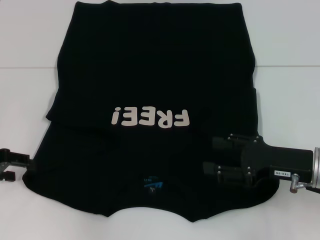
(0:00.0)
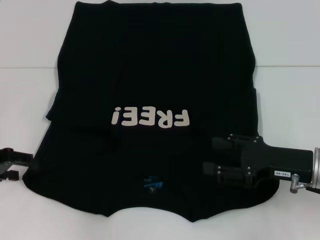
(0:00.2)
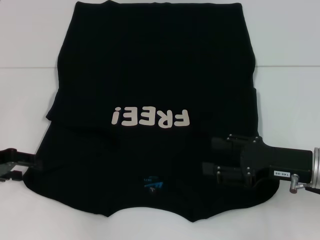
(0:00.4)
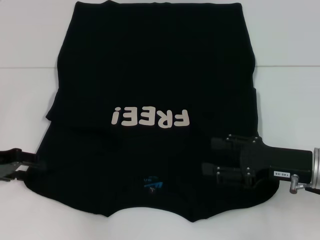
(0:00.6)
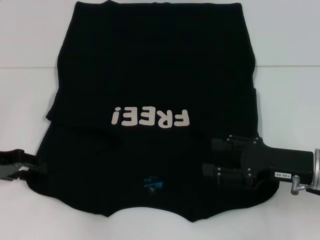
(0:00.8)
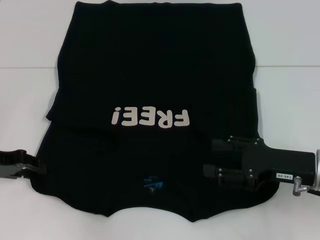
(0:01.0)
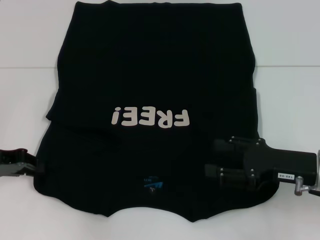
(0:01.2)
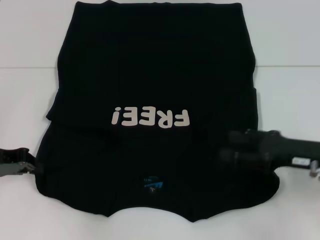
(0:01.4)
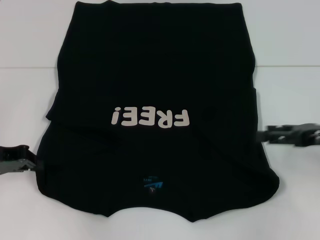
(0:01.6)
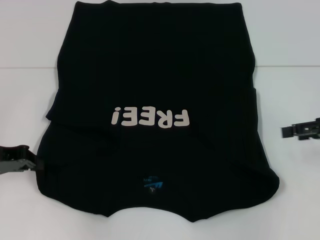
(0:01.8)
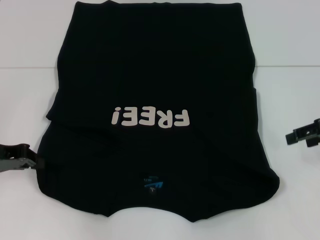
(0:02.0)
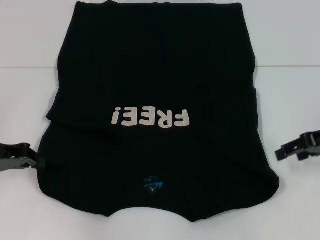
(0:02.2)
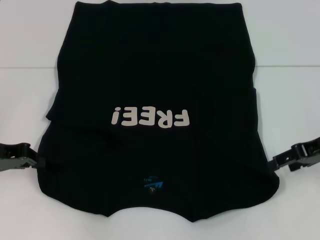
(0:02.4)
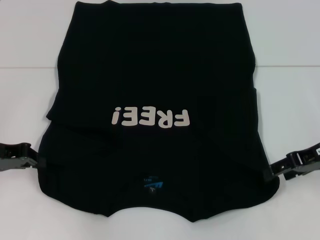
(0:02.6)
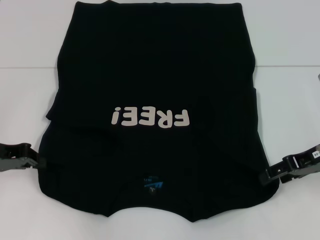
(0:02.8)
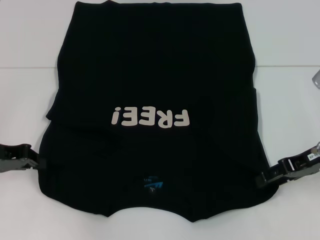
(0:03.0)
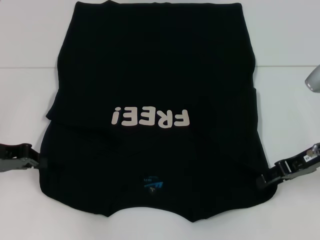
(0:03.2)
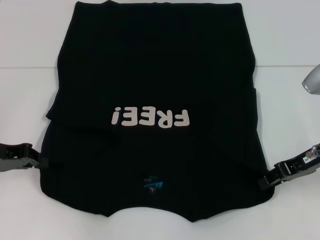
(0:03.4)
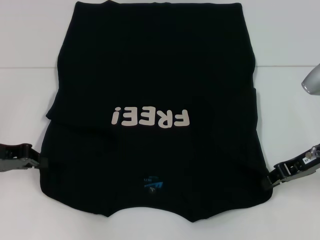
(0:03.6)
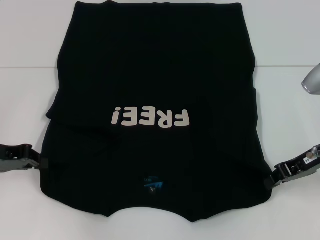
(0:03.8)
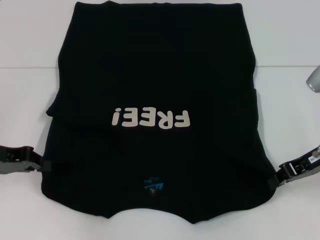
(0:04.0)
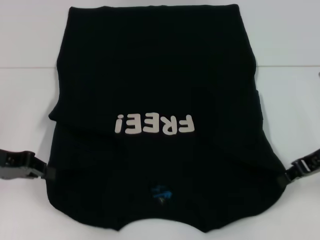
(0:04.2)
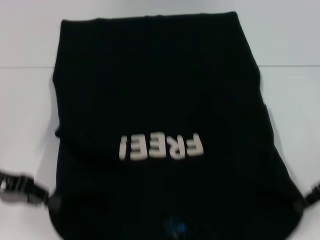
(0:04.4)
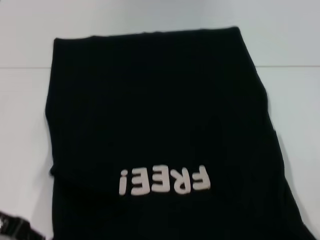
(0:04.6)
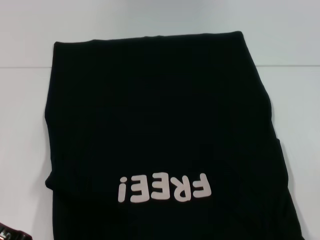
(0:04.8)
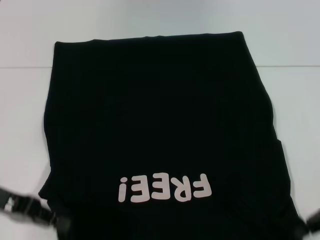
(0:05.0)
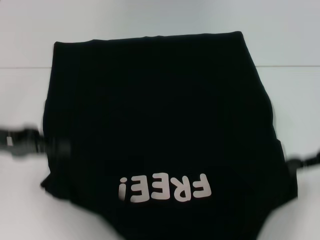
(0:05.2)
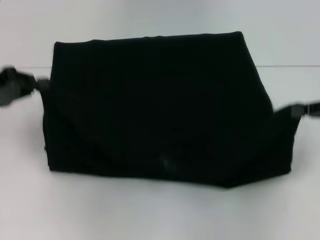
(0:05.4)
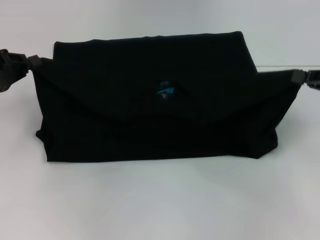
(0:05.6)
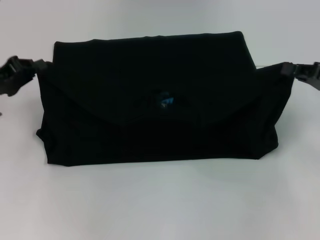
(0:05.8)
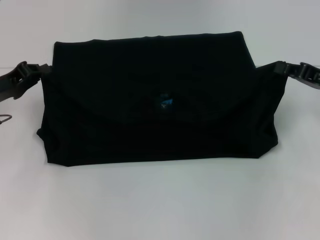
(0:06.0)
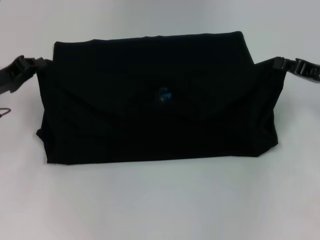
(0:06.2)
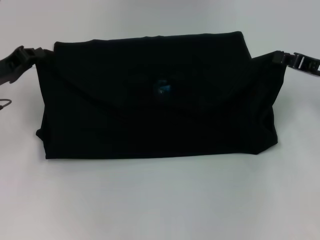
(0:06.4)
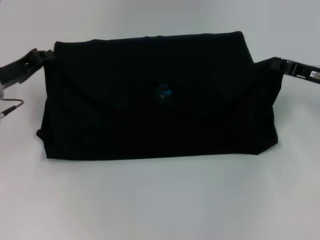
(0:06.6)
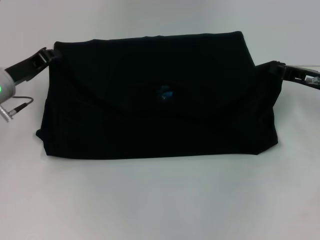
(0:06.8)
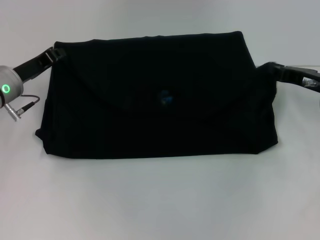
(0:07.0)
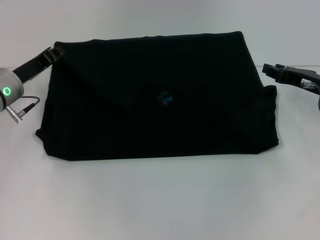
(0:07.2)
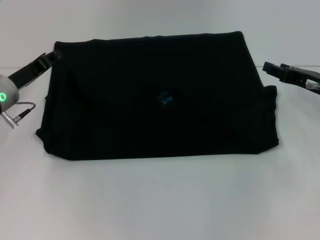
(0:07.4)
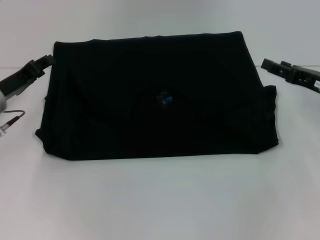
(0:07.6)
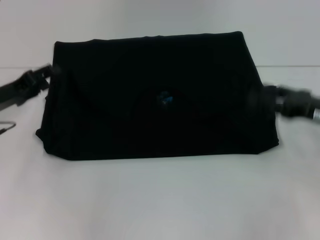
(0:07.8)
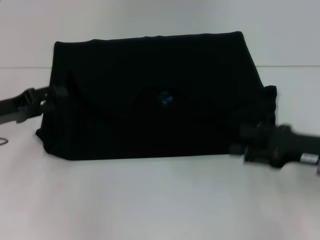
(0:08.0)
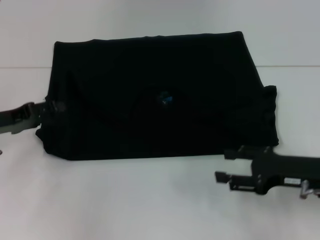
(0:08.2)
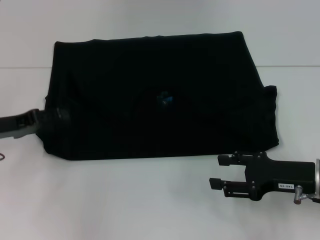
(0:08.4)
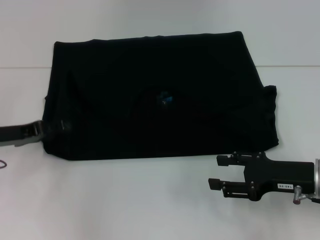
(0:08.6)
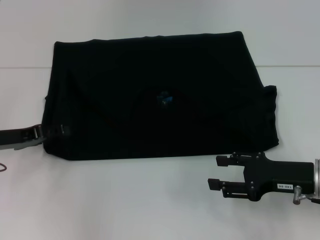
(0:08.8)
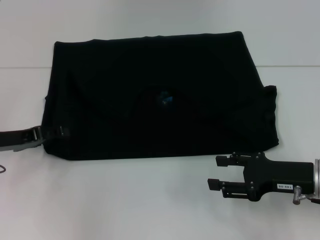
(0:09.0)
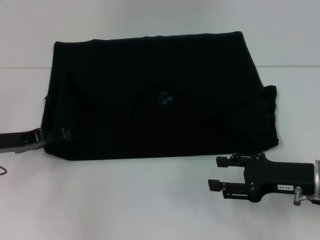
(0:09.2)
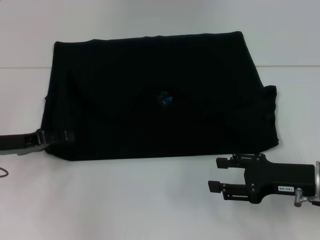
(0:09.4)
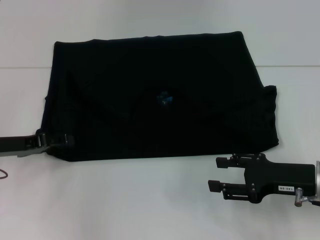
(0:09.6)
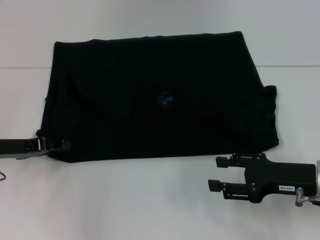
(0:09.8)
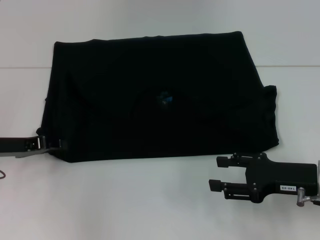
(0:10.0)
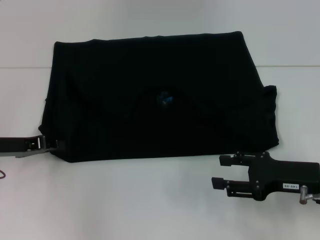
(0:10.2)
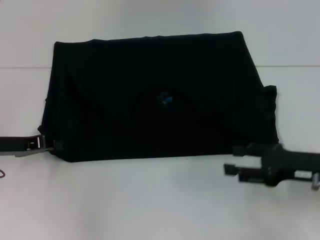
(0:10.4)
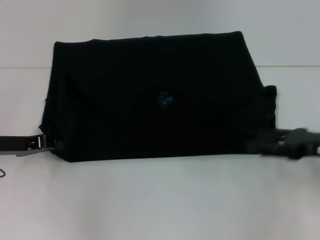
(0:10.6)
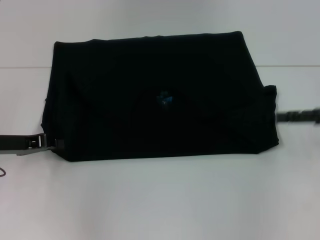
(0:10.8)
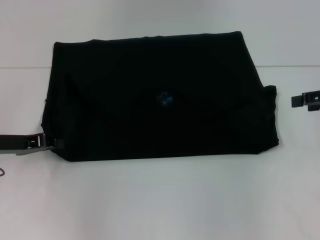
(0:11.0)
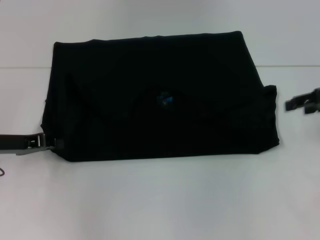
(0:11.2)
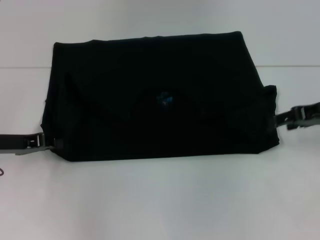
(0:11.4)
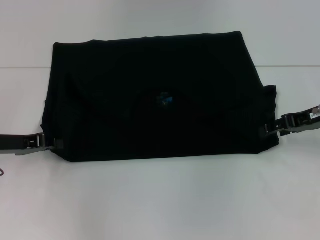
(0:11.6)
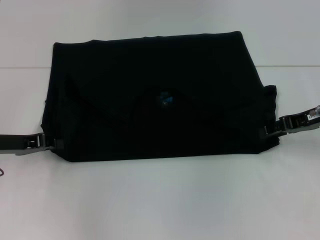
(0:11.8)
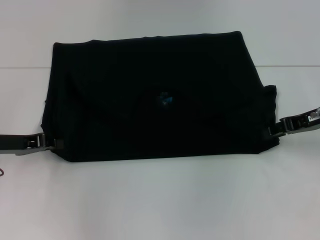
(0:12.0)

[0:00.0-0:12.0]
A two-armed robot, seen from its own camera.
Step, 0:00.0 to 0:01.4: Grab the bottom left corner with your left hand.
Step, 0:01.6 to 0:04.0: Grab the bottom right corner with your right hand.
Step, 0:04.2 to 0:07.0: Fold the clothes with your left hand.
Step, 0:04.2 to 0:07.0: Fold the clothes with your right hand.
0:00.0 to 0:01.6: The right gripper is displaced to the right by roughly 5 cm; the left gripper closes up.
0:03.0 to 0:04.4: The right gripper closes.
0:04.4 to 0:06.0: The left gripper travels forward by roughly 5 cm. Meanwhile the right gripper ends up roughly 5 cm from where it was.
0:06.0 to 0:07.6: The left gripper opens; the right gripper opens up.
0:07.6 to 0:09.0: The right gripper moves backward and to the left, roughly 10 cm, while the left gripper moves about 5 cm, and opens up.
0:09.0 to 0:10.4: The left gripper closes.
0:10.4 to 0:12.0: The right gripper shifts about 10 cm forward and upward.

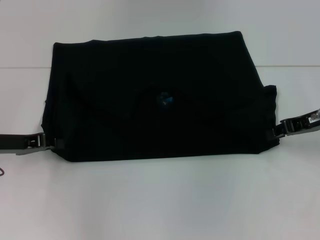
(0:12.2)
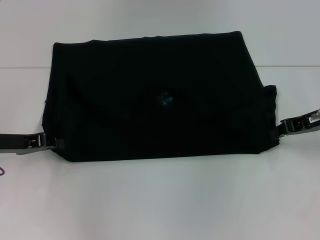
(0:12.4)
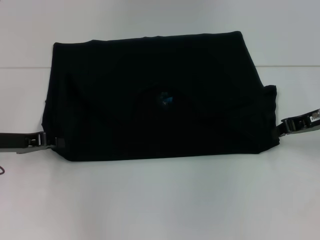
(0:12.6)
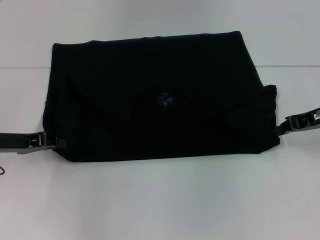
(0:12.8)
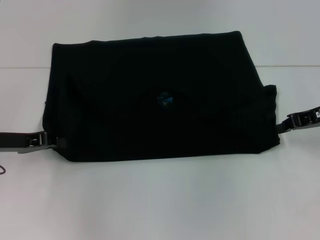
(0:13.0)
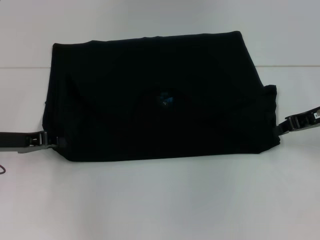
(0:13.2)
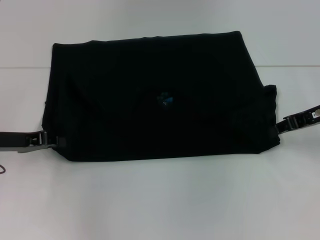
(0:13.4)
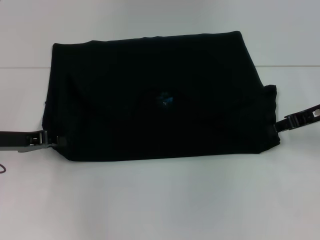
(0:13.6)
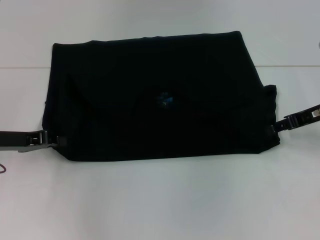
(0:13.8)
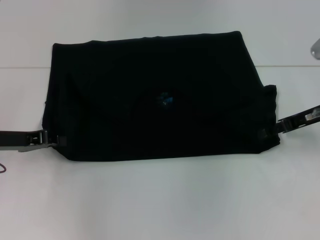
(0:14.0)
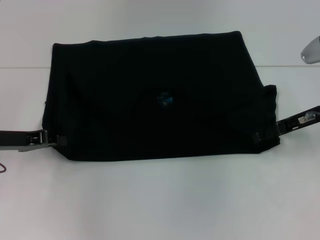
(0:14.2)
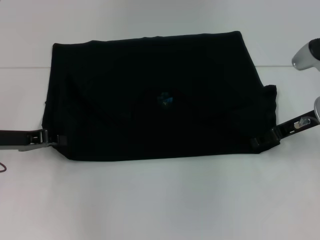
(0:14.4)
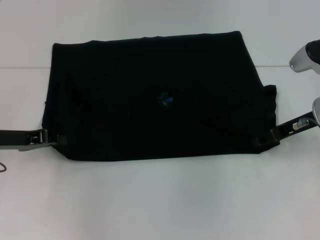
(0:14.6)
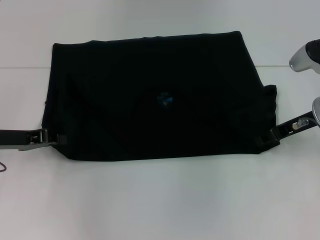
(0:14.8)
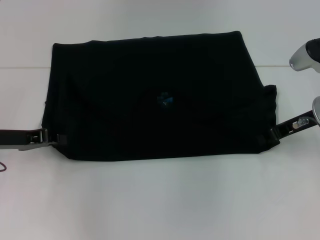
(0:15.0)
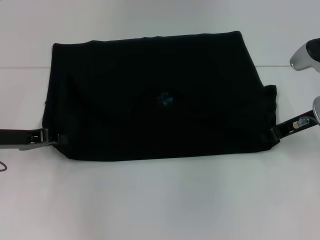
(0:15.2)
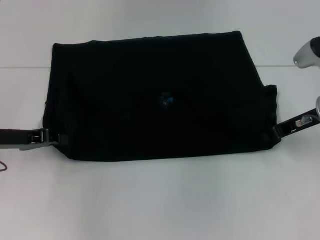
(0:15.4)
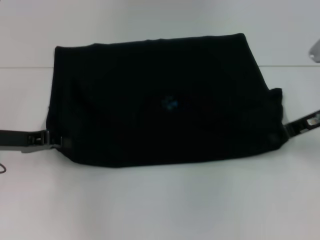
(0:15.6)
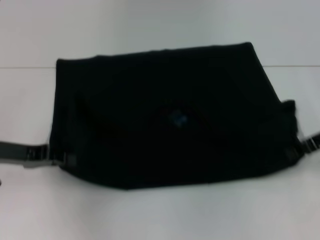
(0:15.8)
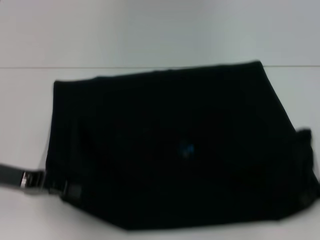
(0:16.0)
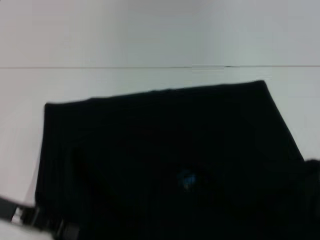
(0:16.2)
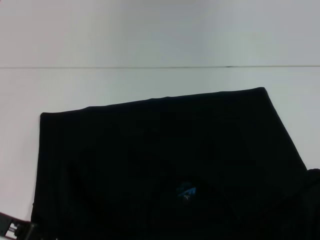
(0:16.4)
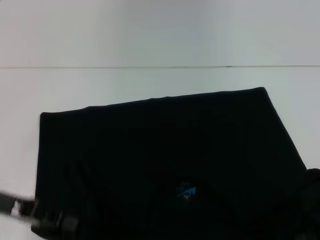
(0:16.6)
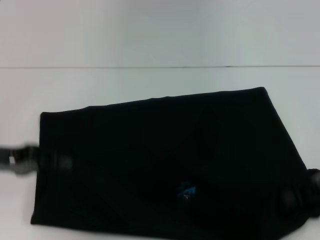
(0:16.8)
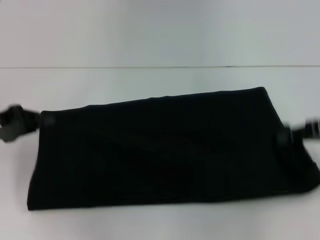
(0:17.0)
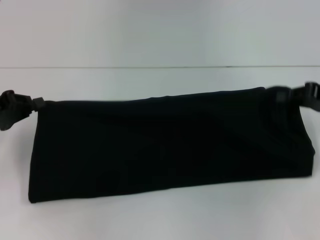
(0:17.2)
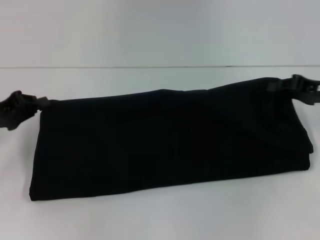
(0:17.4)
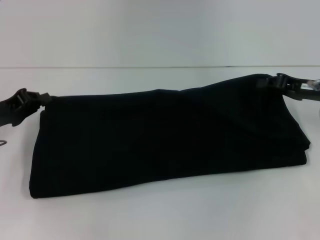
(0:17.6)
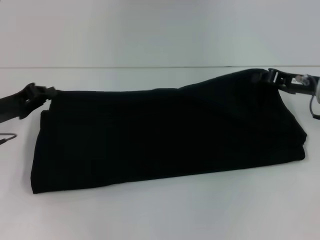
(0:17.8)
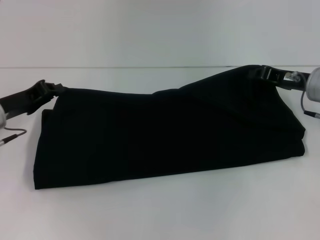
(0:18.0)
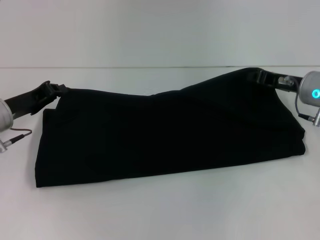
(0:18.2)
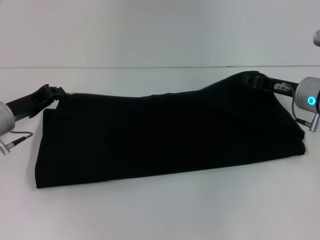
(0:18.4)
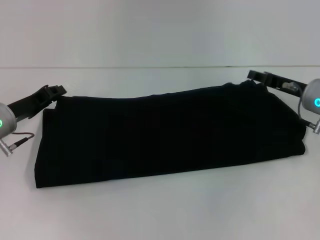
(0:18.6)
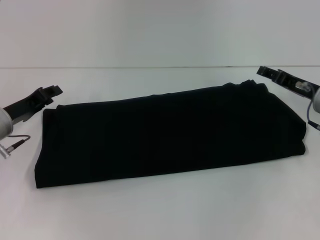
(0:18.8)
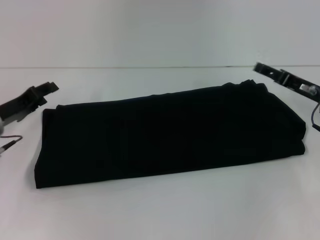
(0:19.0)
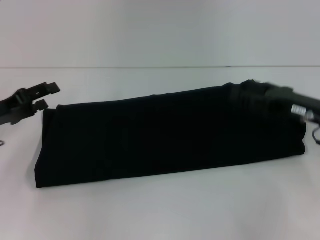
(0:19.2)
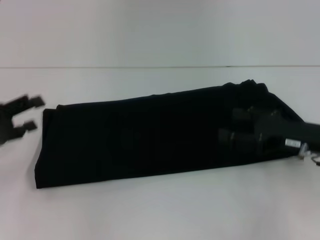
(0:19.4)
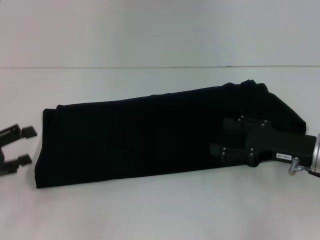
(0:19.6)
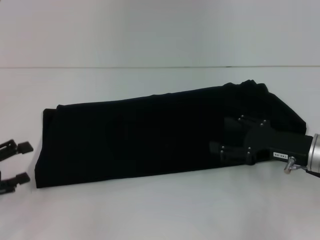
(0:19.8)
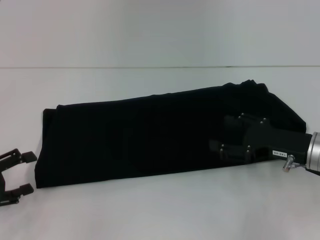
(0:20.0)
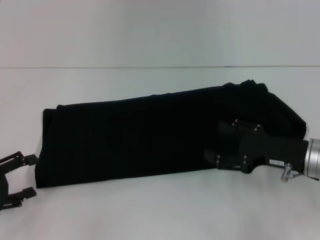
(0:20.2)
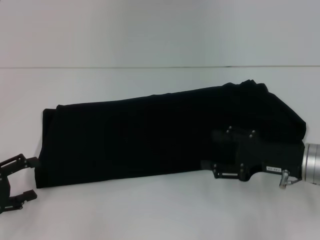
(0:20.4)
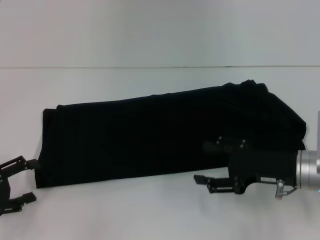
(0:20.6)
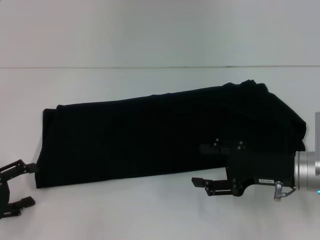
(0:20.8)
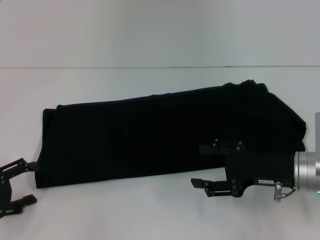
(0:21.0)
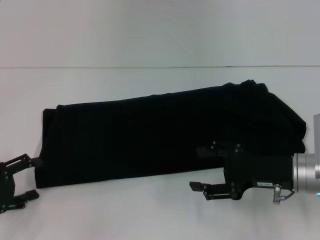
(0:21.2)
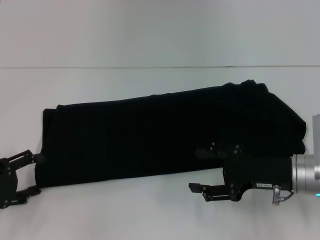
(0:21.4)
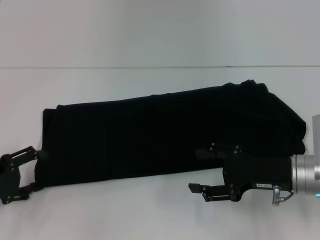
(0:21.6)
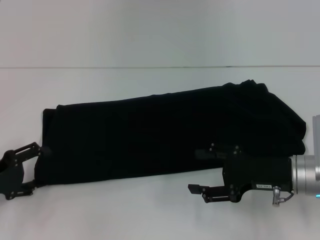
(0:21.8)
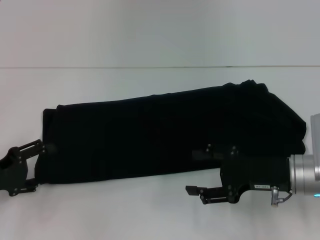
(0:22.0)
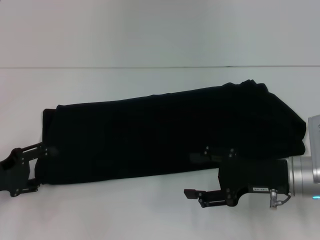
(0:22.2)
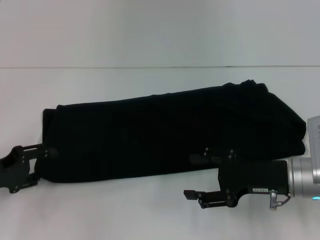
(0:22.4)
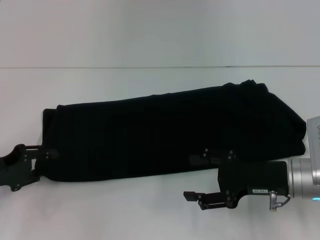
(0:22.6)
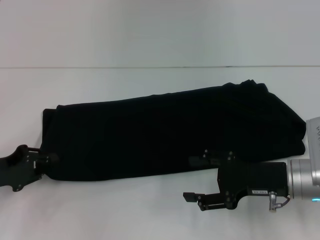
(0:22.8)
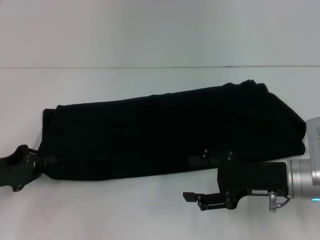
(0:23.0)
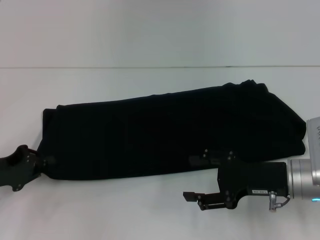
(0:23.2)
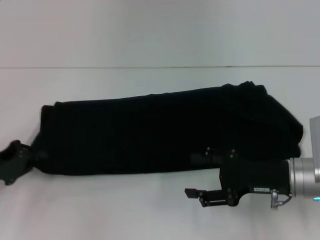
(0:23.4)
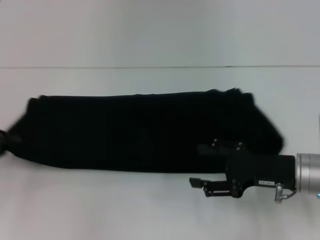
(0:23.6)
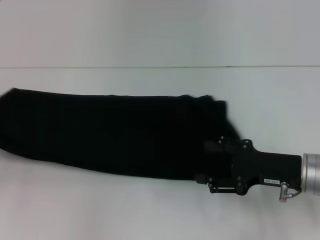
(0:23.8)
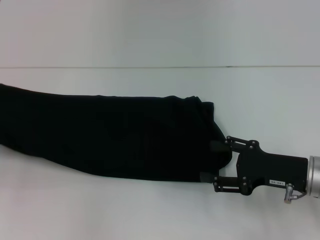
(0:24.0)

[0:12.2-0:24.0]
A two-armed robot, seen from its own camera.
Step, 0:12.2 to 0:16.2: Pull the clothes with your left hand.
Step, 0:12.2 to 0:16.2: Pull the clothes with your right hand.
Step, 0:16.4 to 0:18.8: Fold the clothes with your right hand.
0:12.2 to 0:13.6: There are only small adjustments of the grippers.
0:13.6 to 0:15.2: The right gripper opens, then closes again.
0:15.2 to 0:16.6: The right gripper shifts approximately 10 cm backward and to the right. Meanwhile the left gripper travels backward by approximately 5 cm.
0:16.6 to 0:18.2: The left gripper is displaced forward by about 10 cm, while the right gripper is displaced forward and to the left by some 15 cm.
0:18.2 to 0:19.6: The left gripper moves backward and to the left, about 15 cm, and opens up. Meanwhile the right gripper is displaced backward by some 10 cm, and opens.
0:21.0 to 0:22.6: The left gripper moves approximately 5 cm.
0:22.6 to 0:24.0: The left gripper moves to the left and upward, roughly 10 cm, and closes its fingers.
